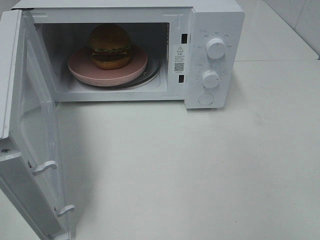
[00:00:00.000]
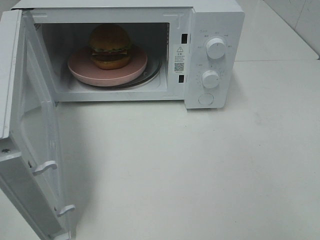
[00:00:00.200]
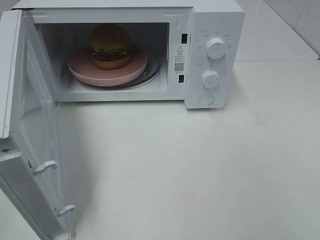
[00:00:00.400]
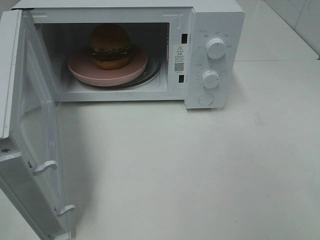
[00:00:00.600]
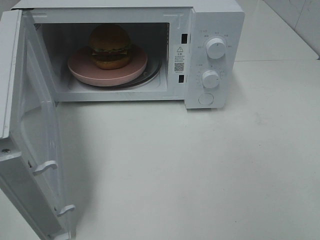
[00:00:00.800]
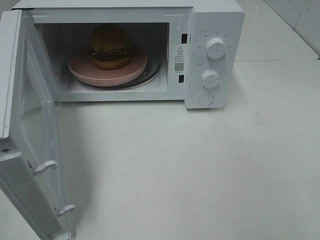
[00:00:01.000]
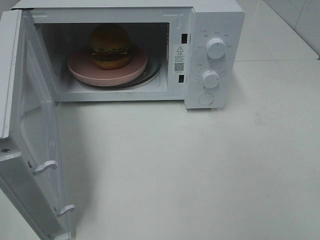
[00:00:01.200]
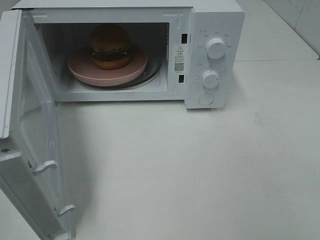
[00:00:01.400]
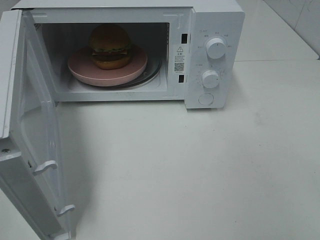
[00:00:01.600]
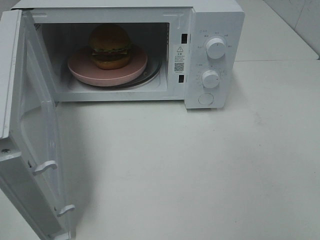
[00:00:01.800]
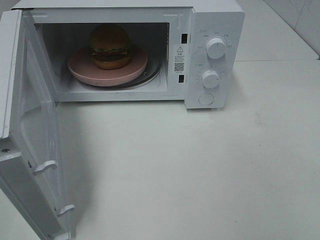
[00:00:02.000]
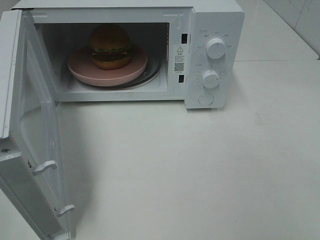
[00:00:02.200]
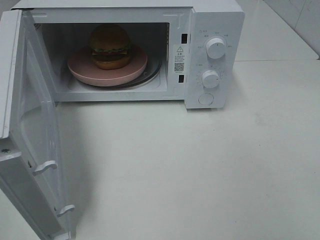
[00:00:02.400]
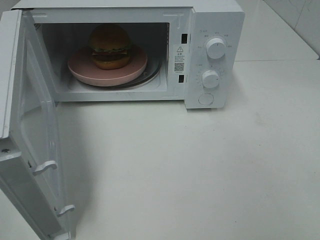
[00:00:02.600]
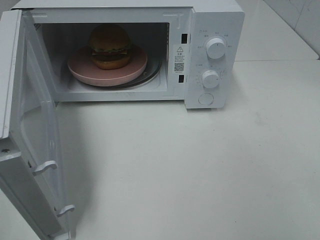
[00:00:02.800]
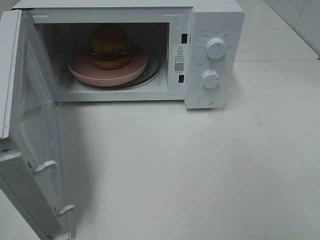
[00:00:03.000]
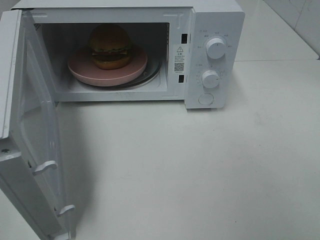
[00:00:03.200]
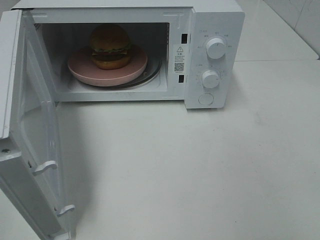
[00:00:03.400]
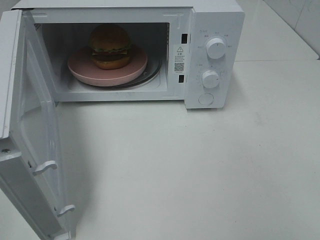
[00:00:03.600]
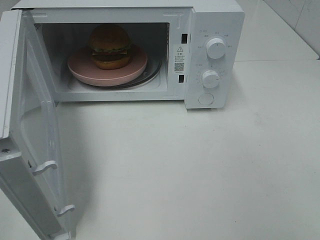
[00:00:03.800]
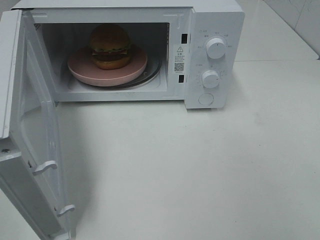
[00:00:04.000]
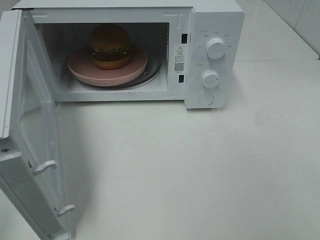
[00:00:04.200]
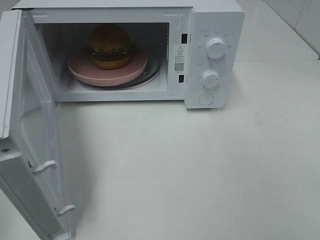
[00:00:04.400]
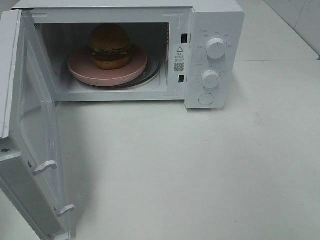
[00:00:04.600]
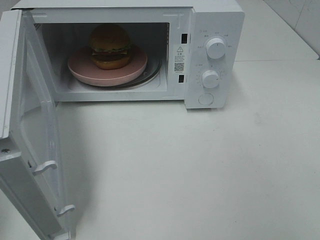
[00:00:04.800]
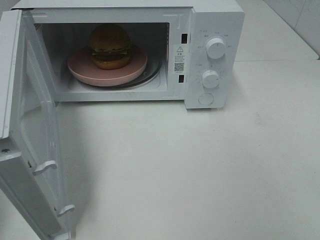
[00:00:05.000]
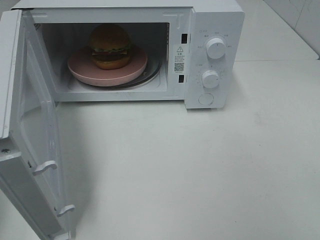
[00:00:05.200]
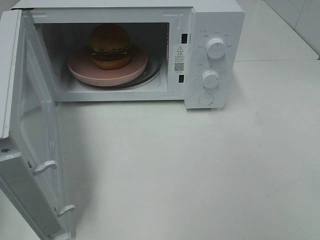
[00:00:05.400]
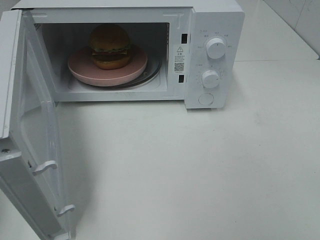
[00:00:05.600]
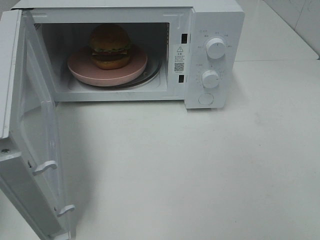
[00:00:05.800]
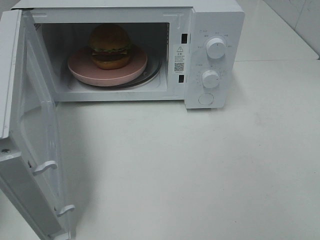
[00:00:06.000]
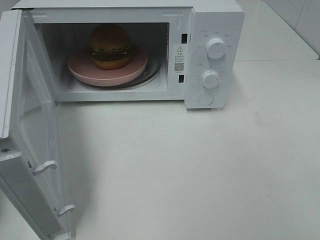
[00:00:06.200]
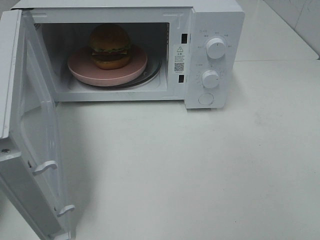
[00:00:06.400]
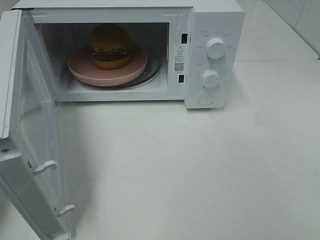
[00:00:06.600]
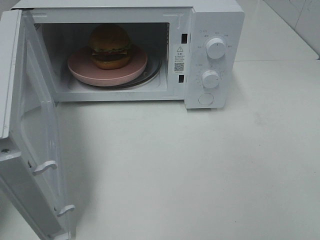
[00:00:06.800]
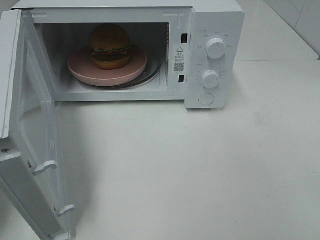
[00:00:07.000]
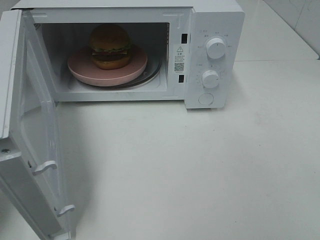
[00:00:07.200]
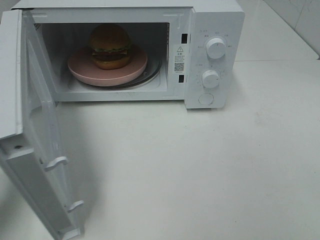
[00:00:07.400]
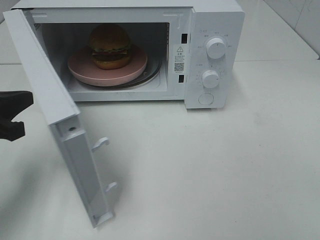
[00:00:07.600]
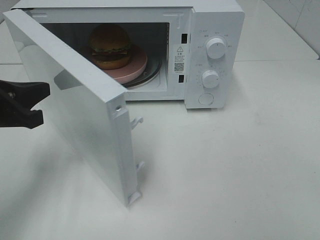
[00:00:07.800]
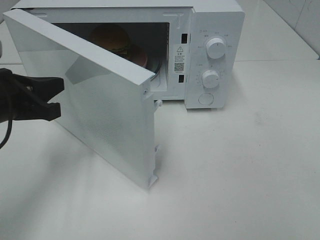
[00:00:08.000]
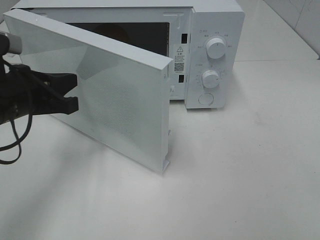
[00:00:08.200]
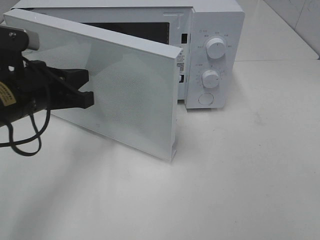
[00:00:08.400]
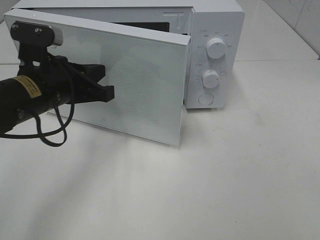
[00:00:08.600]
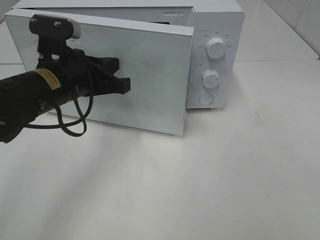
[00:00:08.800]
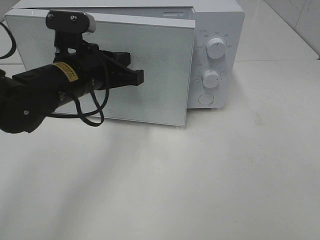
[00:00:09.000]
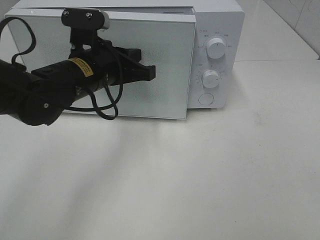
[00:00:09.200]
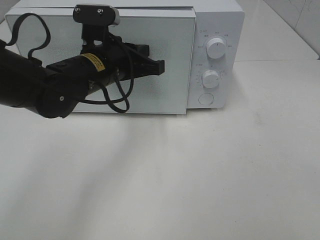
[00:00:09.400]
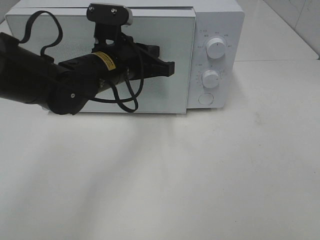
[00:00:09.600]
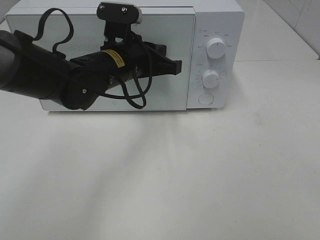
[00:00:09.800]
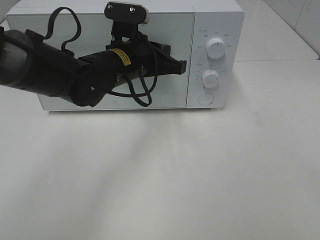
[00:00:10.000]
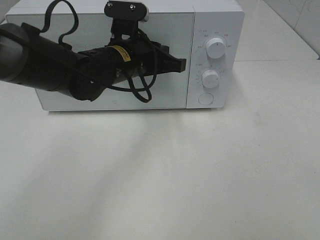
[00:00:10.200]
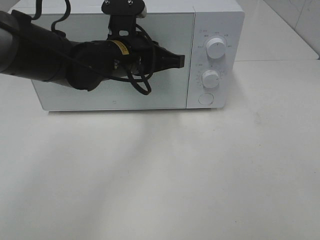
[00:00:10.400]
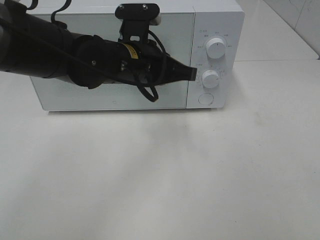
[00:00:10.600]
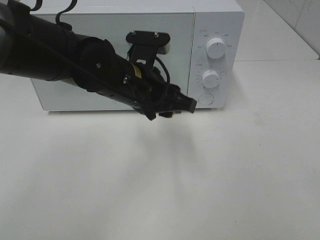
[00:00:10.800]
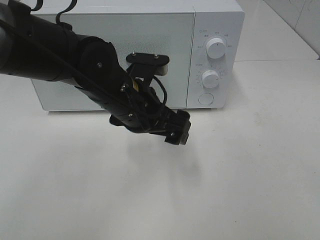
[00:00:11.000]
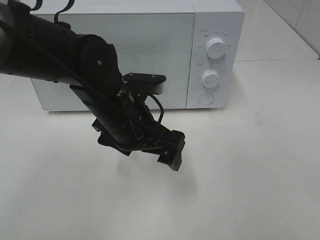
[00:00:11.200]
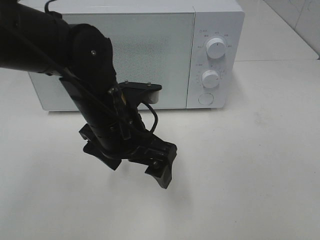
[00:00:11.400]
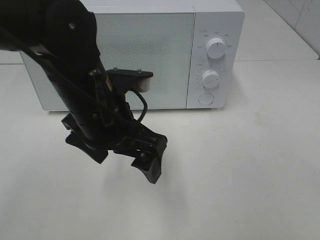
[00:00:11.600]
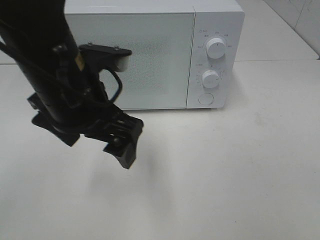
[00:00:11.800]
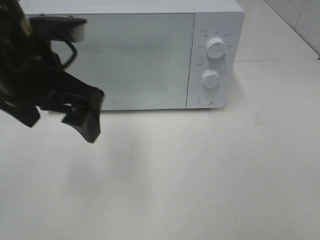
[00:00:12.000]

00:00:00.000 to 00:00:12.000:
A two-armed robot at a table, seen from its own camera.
Task of the whole recording: Heat the burger.
Step, 00:00:00.000 to 00:00:10.400: Left hand: close the microwave door.
00:00:01.600 to 00:00:03.000: Both grippers stay about where they are.
00:00:06.000 to 00:00:07.600: The left gripper is displaced to the right and forward by approximately 10 cm.
00:00:07.600 to 00:00:09.000: The left gripper heads to the right and forward, covering about 15 cm.
00:00:09.000 to 00:00:10.400: The left gripper moves to the right, roughly 5 cm.
00:00:10.400 to 00:00:12.000: The left gripper goes about 15 cm backward, to the left and upward, and opens.

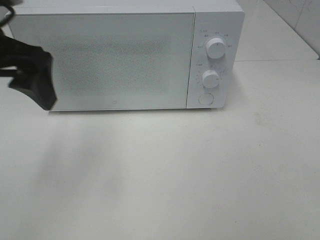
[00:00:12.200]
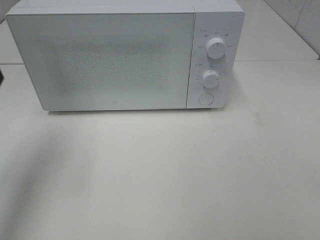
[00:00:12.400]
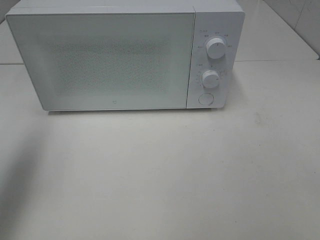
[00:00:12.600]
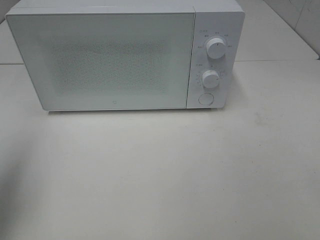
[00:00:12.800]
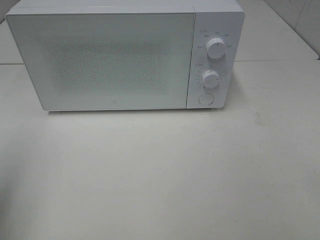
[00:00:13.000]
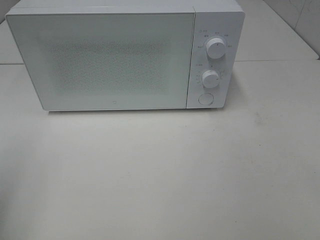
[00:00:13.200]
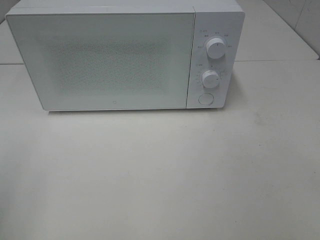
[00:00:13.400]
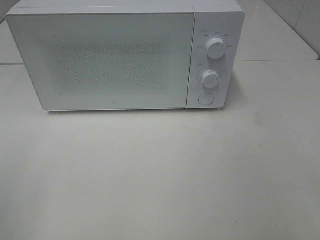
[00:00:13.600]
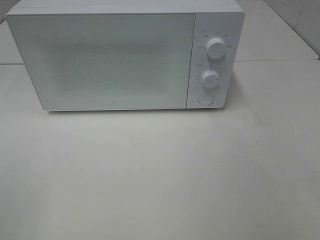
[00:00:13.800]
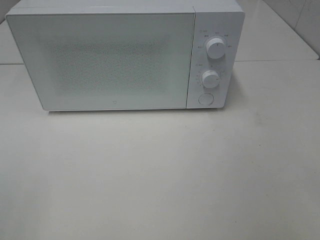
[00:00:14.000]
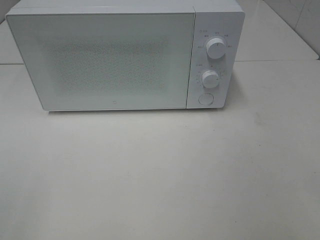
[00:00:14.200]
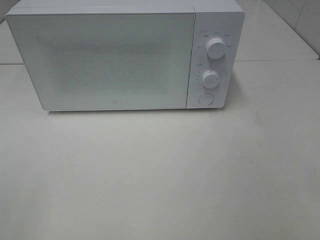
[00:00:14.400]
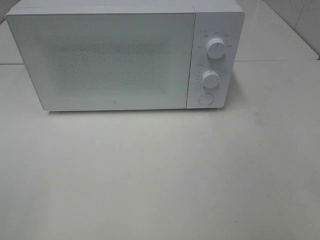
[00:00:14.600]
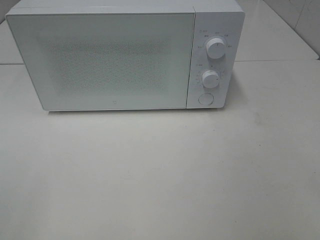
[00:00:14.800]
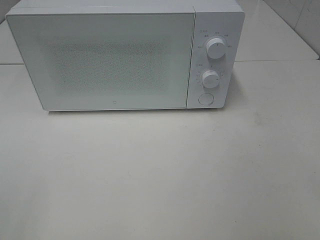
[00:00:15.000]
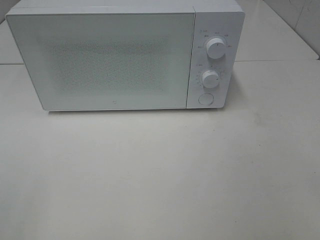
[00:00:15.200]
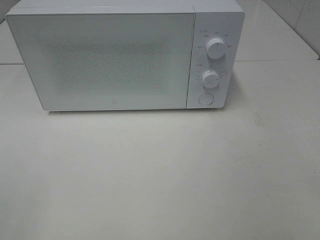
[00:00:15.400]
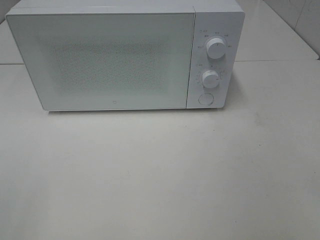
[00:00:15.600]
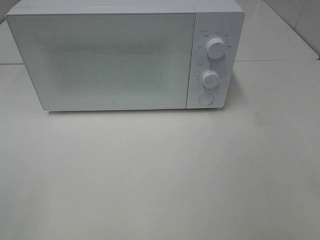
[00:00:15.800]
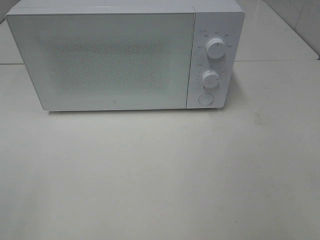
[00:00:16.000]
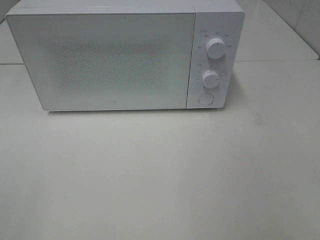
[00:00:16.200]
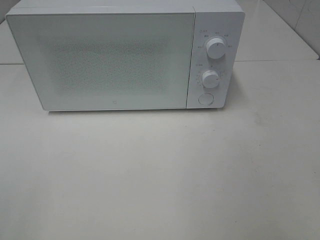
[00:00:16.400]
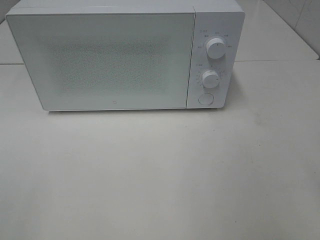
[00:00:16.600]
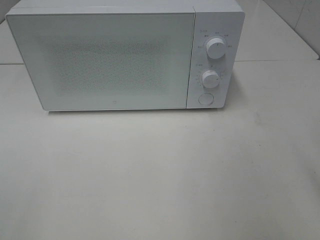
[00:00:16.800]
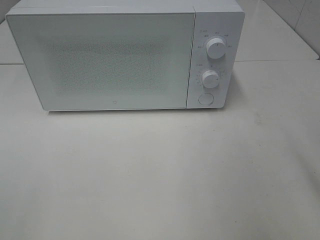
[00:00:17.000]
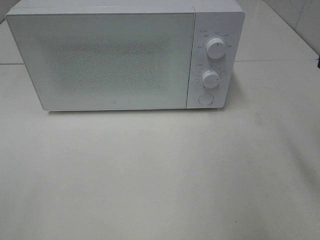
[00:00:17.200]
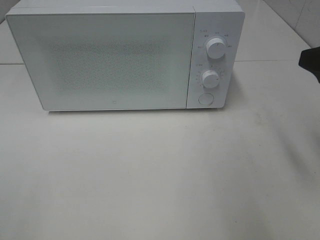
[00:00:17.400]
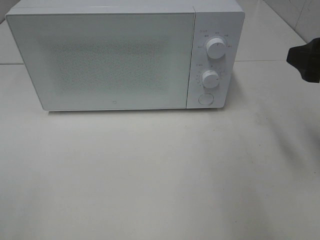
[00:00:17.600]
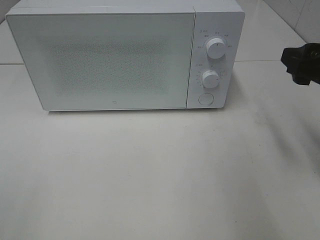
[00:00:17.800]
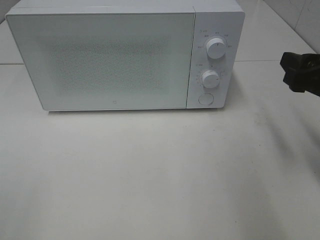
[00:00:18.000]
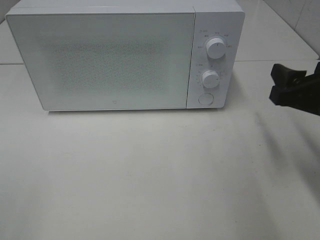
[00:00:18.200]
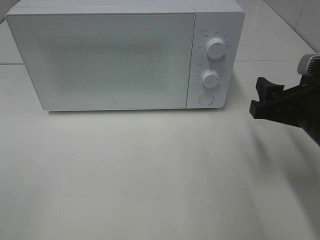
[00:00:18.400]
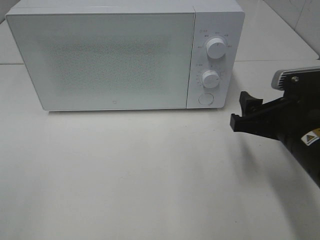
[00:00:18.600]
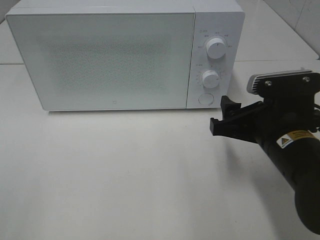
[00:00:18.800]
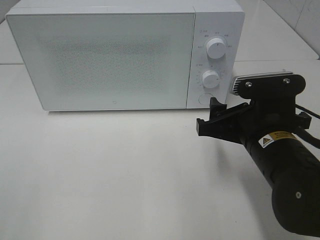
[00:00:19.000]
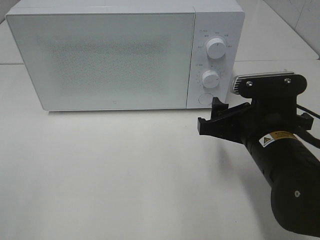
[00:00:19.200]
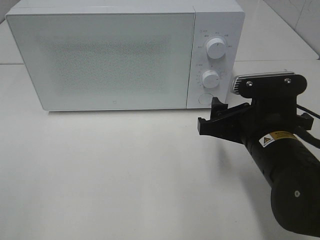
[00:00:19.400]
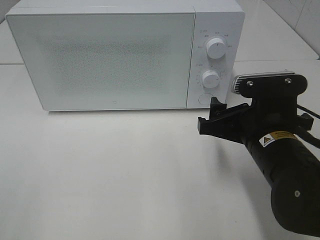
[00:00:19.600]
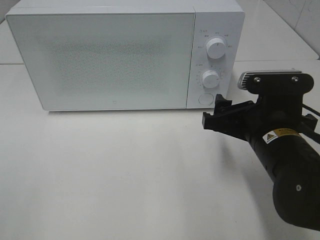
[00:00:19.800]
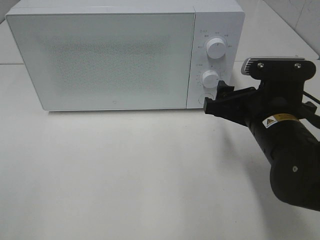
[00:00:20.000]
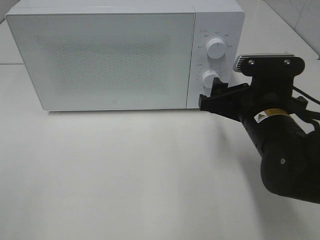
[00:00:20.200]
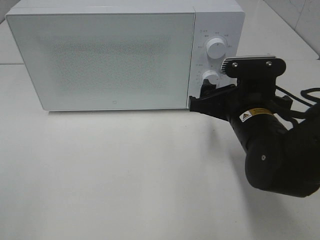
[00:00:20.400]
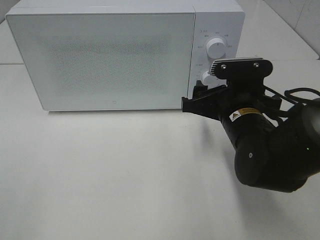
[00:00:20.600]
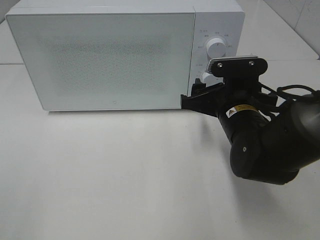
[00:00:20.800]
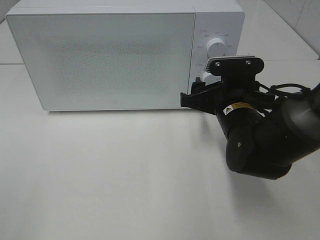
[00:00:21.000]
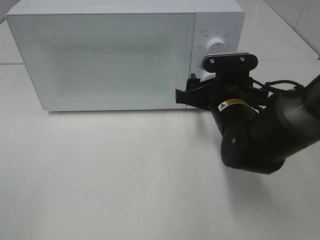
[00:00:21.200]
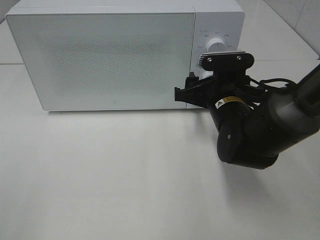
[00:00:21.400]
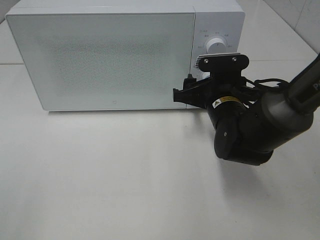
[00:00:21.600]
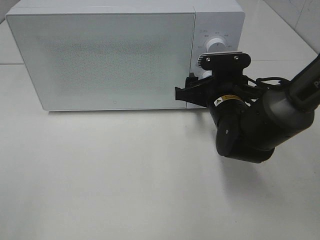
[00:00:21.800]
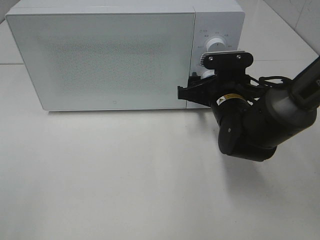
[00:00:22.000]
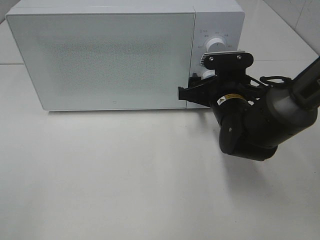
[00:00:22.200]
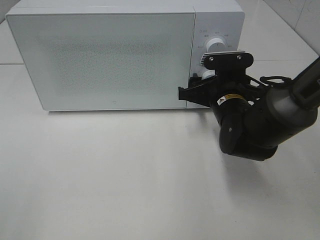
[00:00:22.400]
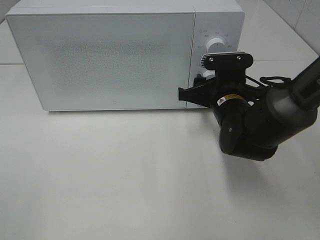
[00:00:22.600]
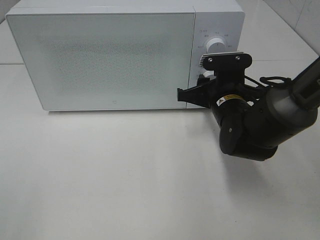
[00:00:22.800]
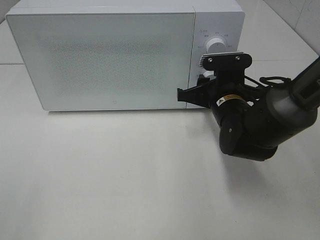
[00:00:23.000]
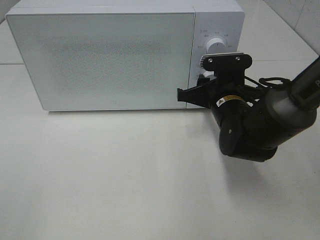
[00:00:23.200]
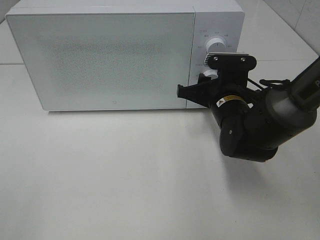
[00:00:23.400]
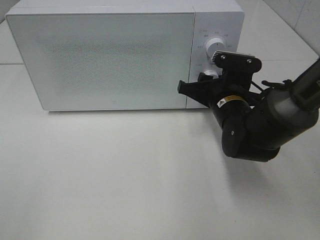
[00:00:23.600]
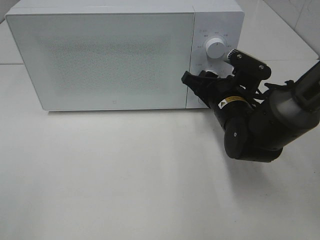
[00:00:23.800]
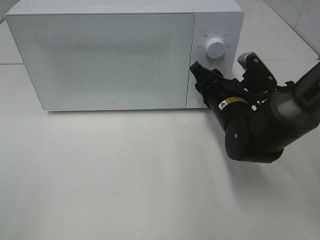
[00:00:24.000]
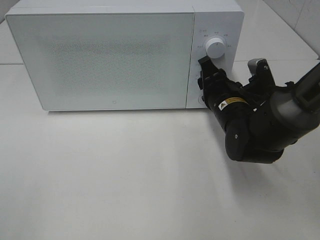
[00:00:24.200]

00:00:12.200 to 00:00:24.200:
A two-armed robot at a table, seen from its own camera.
Task of the whole recording: Heat the burger.
00:00:12.200 to 00:00:13.800: The left gripper moves backward and to the left, approximately 25 cm.
00:00:16.600 to 00:00:18.200: The right gripper is displaced forward and downward by about 15 cm.
00:00:18.200 to 00:00:19.800: The right gripper moves to the left, approximately 10 cm.
00:00:19.800 to 00:00:21.200: The right gripper shifts roughly 10 cm forward.
00:00:21.200 to 00:00:22.600: The grippers make only small movements.
